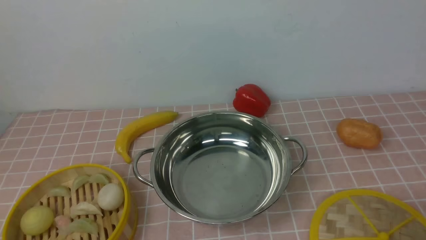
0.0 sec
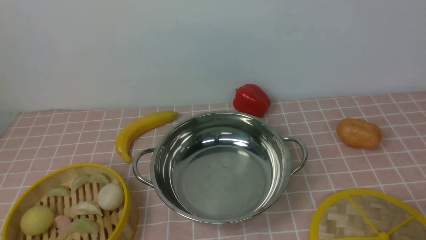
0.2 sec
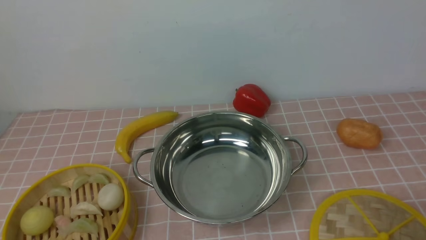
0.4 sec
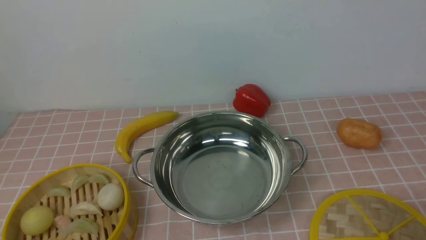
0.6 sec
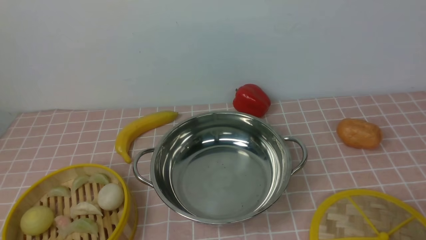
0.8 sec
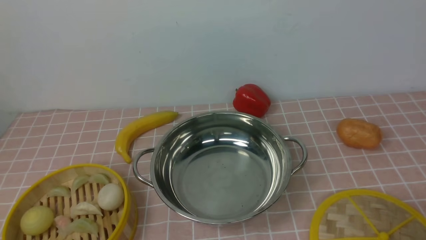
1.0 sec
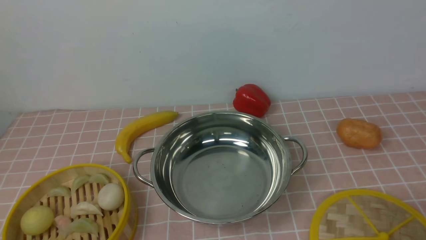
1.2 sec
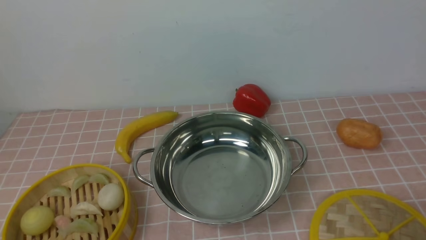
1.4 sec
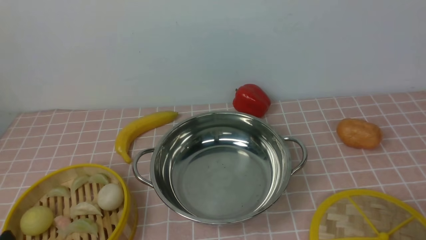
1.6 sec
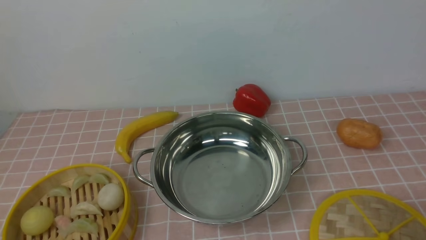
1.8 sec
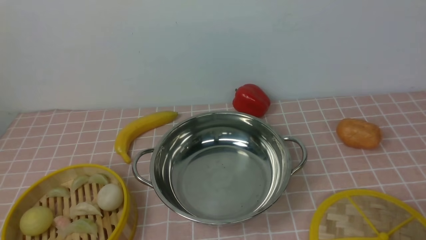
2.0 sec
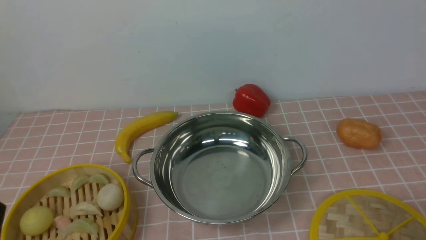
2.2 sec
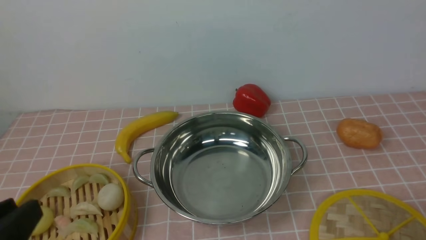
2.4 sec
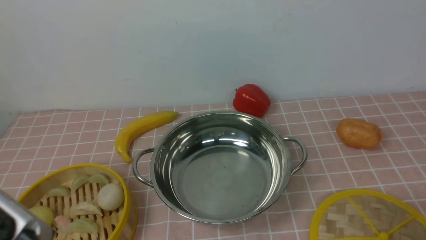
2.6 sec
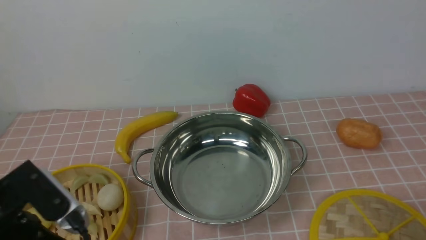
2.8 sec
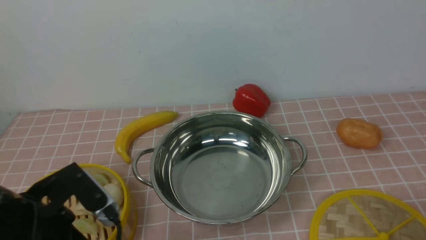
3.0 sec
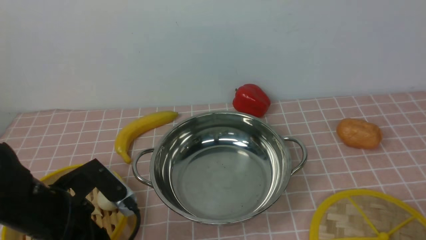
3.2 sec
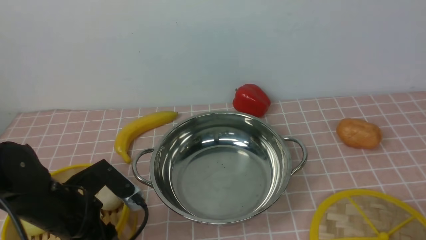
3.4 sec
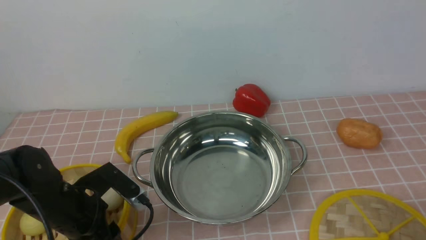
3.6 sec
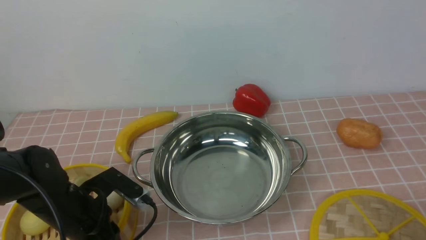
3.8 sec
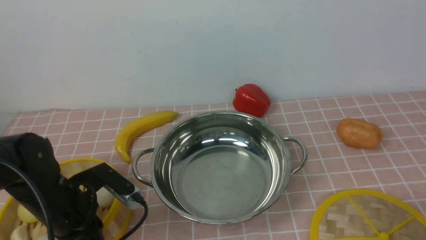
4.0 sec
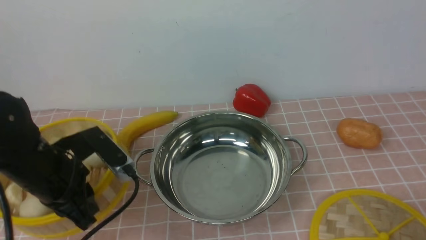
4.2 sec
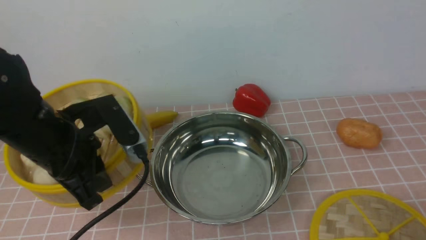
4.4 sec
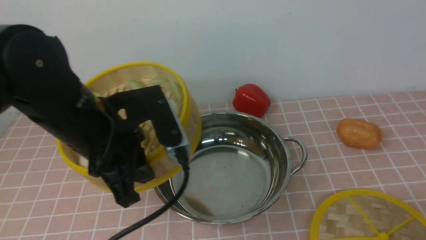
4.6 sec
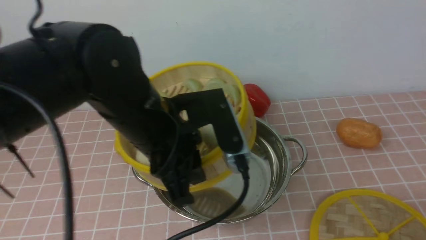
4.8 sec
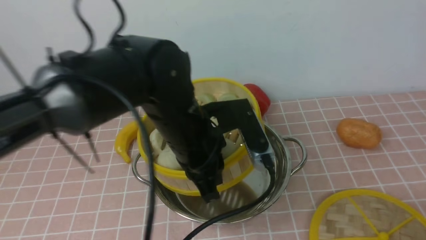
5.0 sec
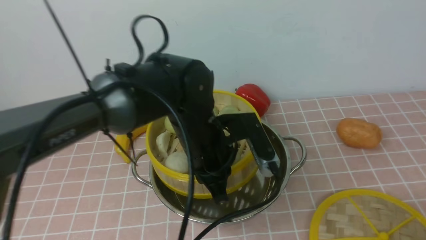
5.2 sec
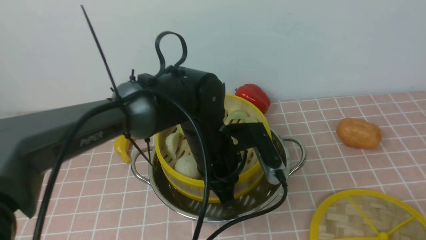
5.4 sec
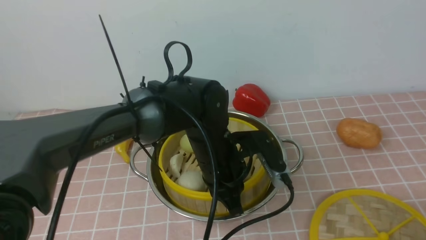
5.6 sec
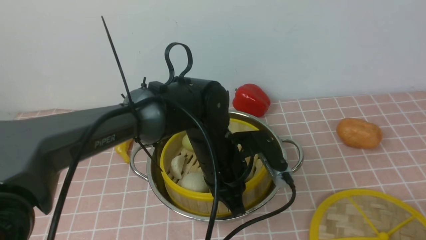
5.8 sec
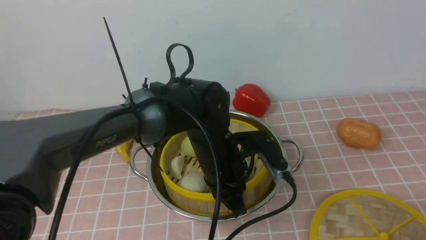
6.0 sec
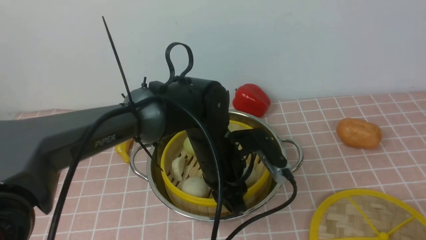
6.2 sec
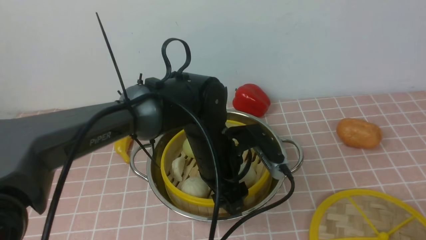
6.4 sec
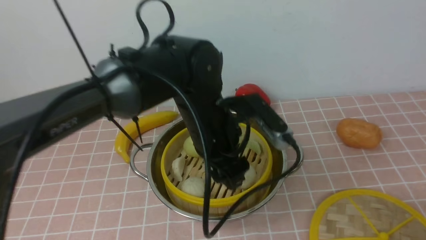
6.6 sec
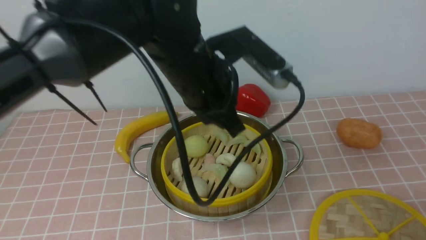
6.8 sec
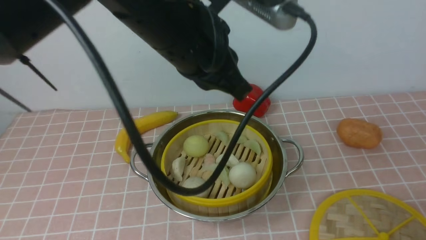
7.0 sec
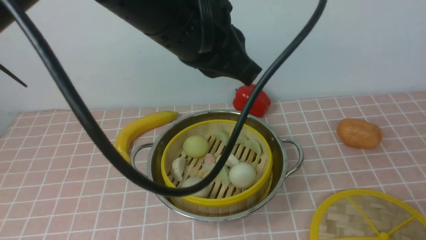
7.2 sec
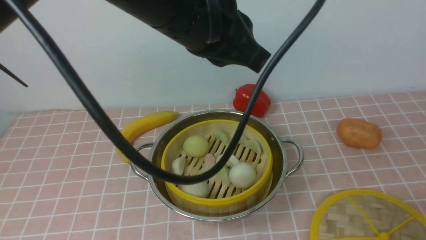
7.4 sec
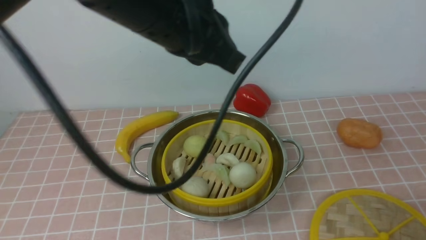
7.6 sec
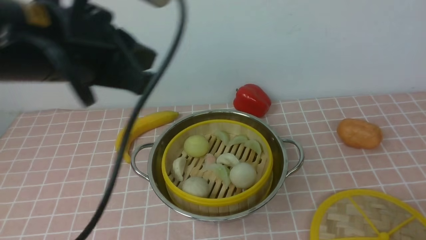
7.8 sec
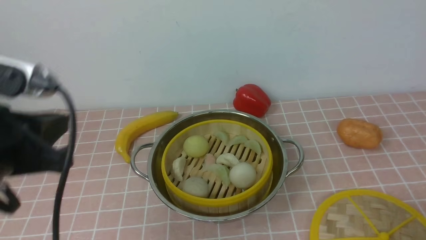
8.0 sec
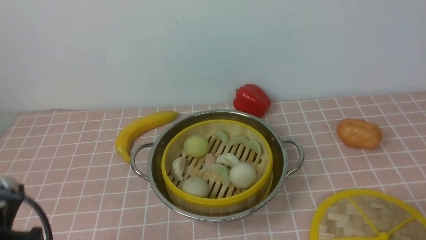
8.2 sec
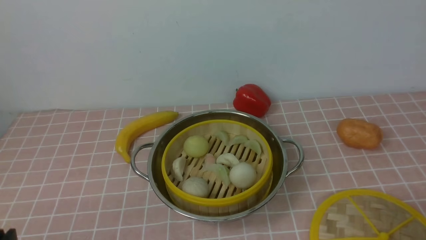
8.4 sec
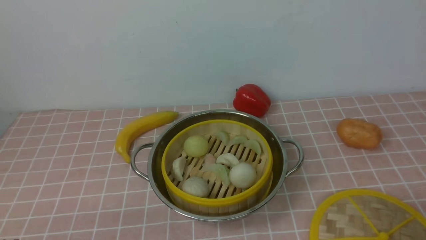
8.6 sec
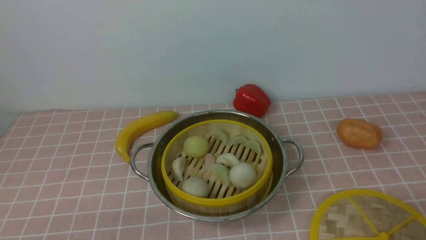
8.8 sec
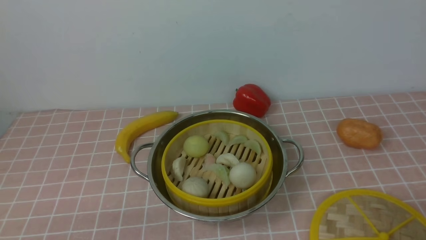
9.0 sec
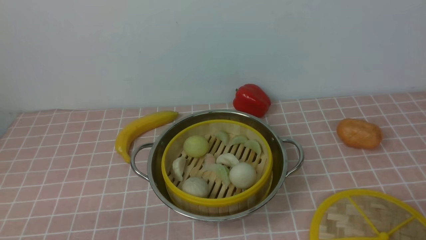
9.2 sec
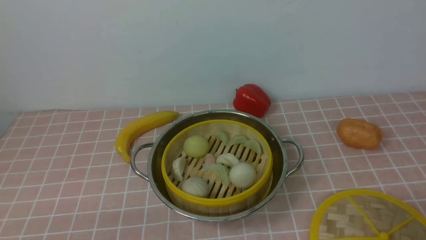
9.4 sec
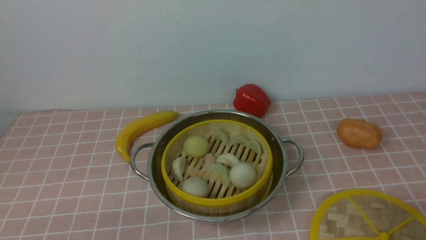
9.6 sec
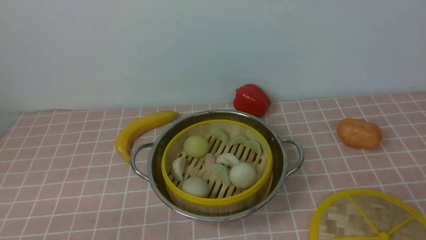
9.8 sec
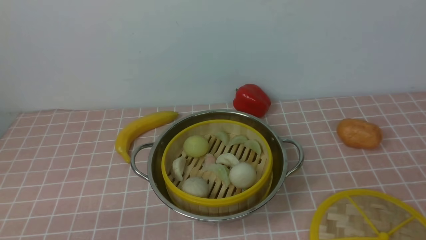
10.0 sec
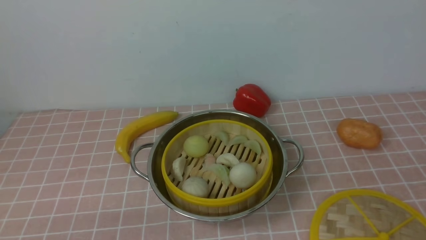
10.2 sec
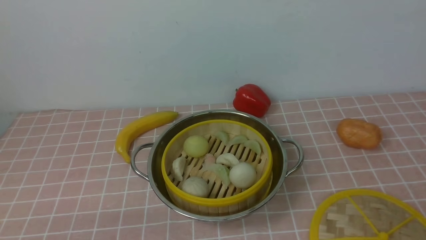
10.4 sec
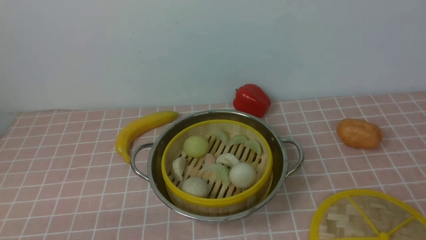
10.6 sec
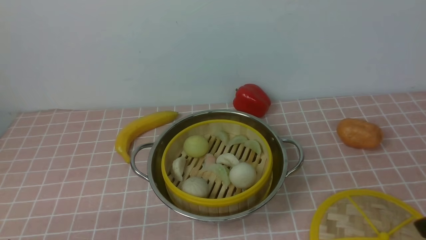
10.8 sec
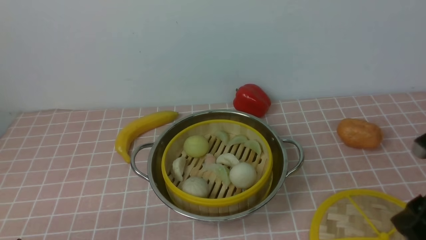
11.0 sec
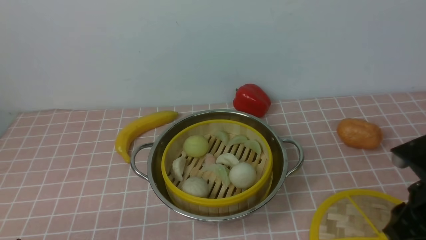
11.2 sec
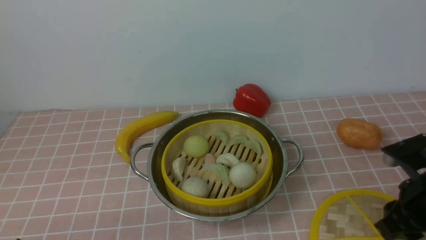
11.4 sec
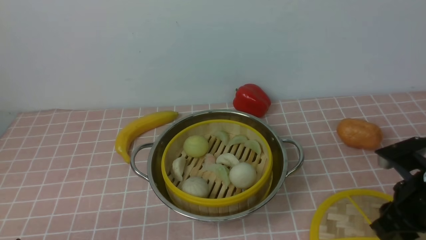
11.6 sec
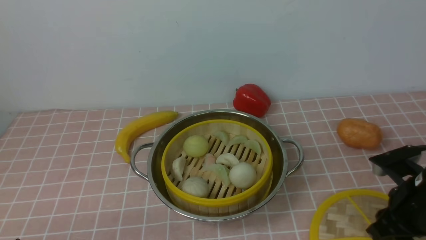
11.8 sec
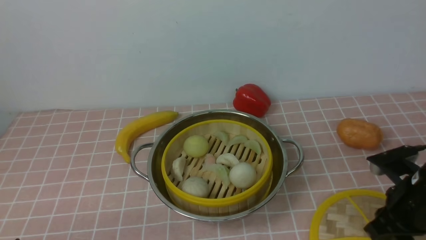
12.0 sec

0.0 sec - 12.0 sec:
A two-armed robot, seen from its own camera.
Task of the whole recording: place the steamer in the pot on the pink tablecloth, and put the lid on the steamer.
Step, 0.0 sec - 4.0 sec: use the left arm to lift the steamer closest to it.
Step, 4.2 sec - 6.4 sec: use the left arm to put the steamer into the iron steamer pot in the middle.
1.6 sec - 3.0 sec: The left gripper heads forward, covering approximately 10 cm.
3.0 sec - 4.4 sec: The left gripper is displaced forward by some 10 cm, and closes its fingers.
4.4 sec - 6.0 sec: The left gripper travels to the right and downward by some 20 cm.
6.0 sec - 7.6 sec: The left gripper travels upward by approximately 25 cm, and opens, then closes once more.
7.6 sec - 9.0 sec: The left gripper goes about 35 cm downward, backward and to the left.
10.4 sec - 12.0 sec: The right gripper travels forward and downward by about 25 cm.

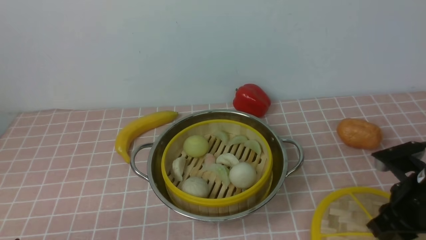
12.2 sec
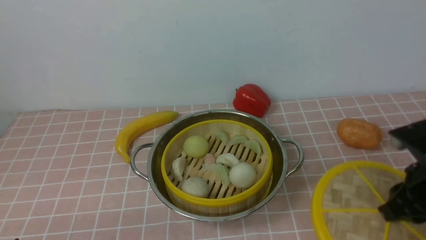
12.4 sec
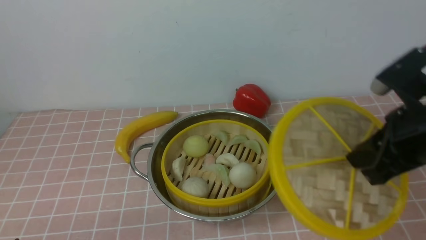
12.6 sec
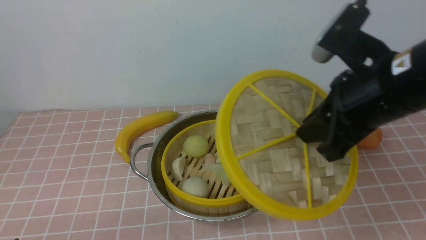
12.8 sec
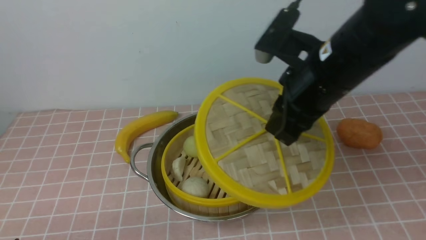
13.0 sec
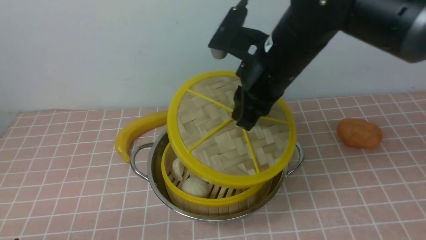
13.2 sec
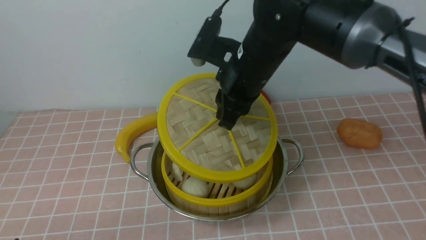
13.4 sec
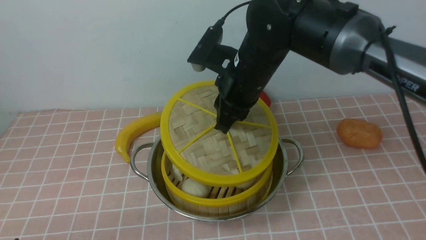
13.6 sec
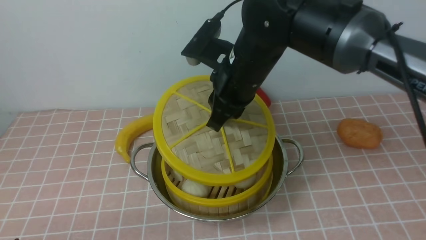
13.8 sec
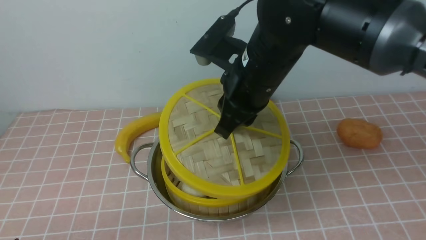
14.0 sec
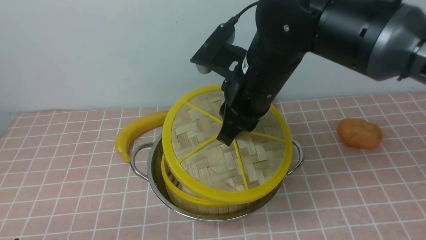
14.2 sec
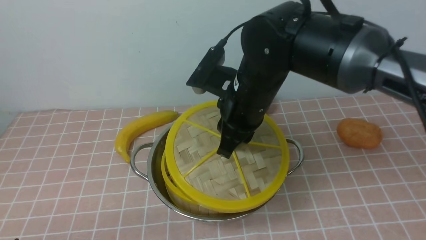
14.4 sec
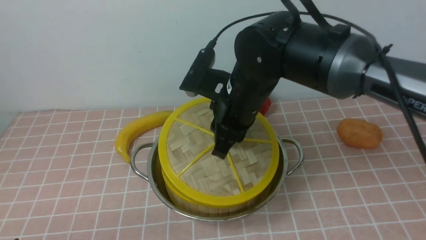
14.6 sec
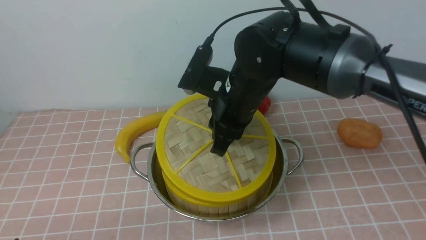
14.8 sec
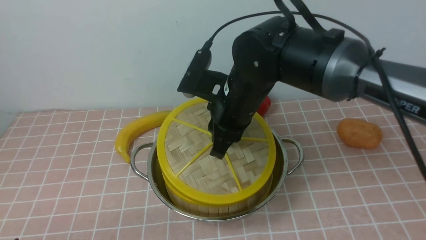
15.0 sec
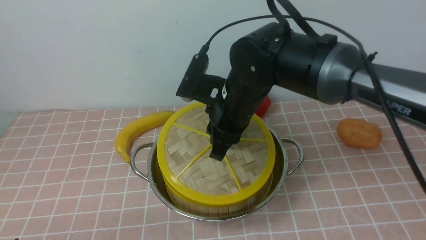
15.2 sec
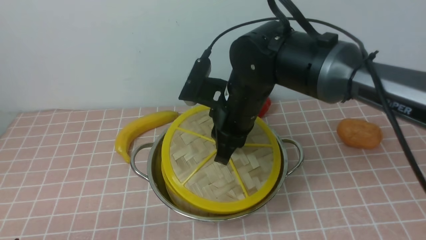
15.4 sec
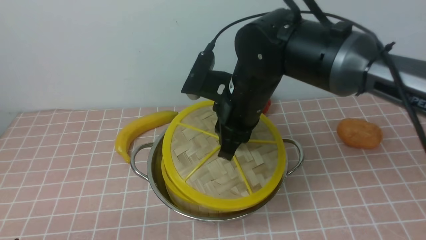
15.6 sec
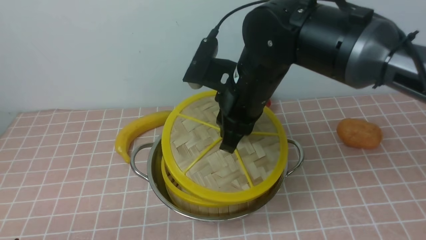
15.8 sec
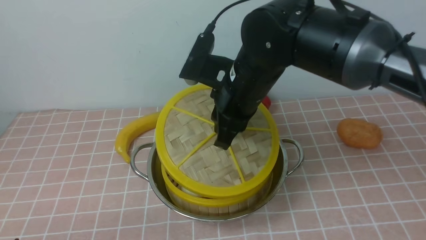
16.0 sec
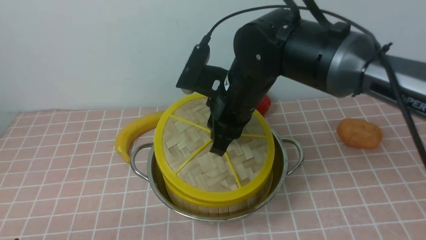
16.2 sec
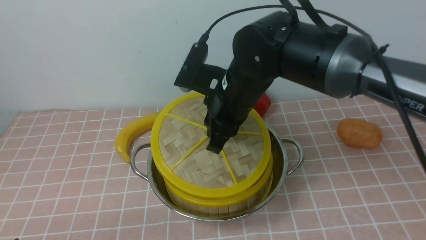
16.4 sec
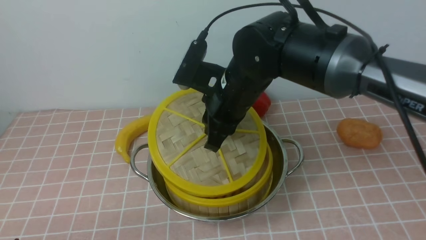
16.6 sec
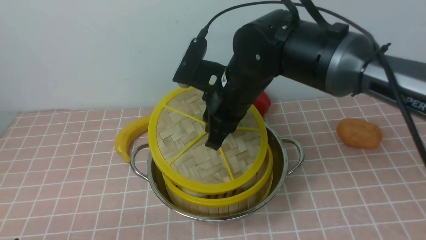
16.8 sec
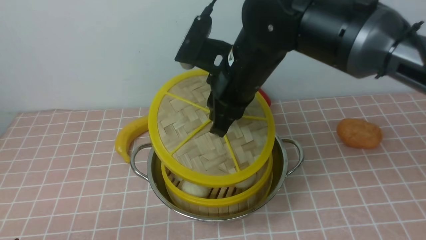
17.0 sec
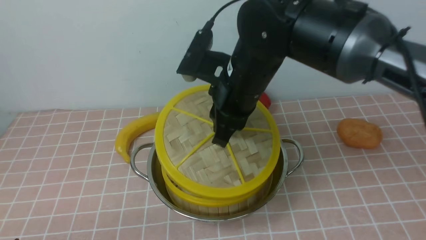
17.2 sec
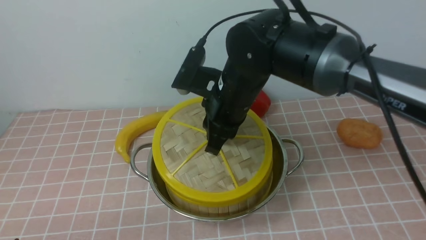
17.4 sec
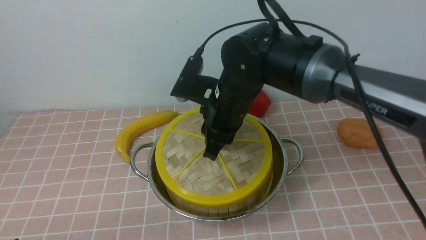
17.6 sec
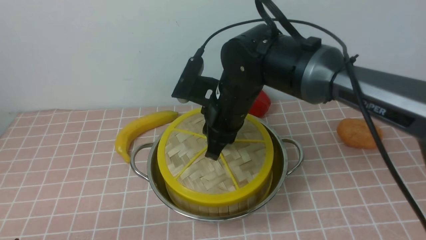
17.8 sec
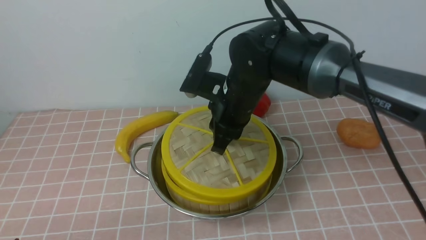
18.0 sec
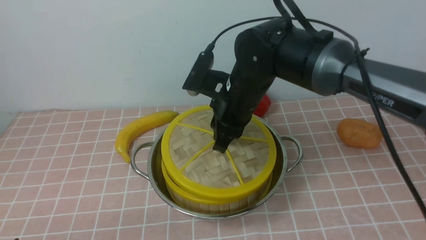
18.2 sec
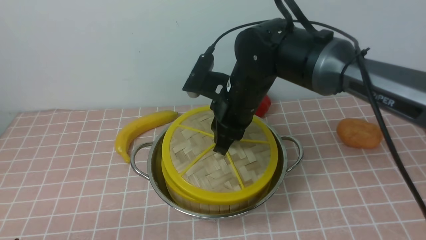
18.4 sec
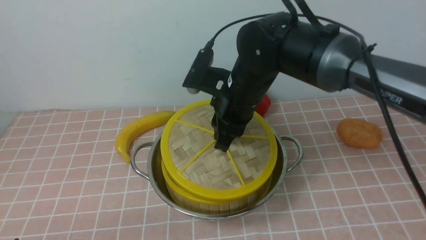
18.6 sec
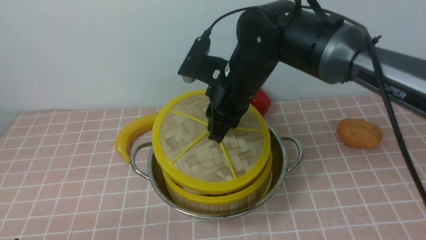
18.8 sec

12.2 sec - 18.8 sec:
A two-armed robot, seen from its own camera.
Task of the whole recording: place the steamer in the pot on the pink tablecloth, and put the lid on the steamer.
12.2 sec - 13.8 sec: The right gripper shifts about 25 cm to the left, upward and forward.
15.4 sec - 18.8 sec: The grippers make only small movements.
